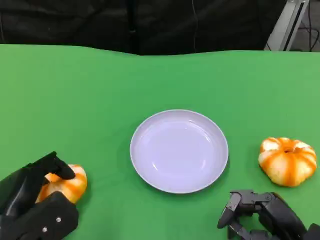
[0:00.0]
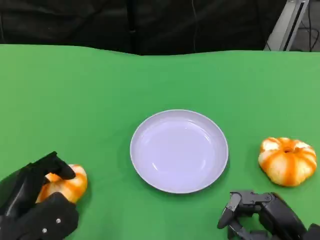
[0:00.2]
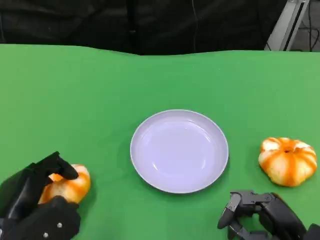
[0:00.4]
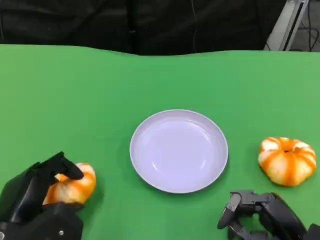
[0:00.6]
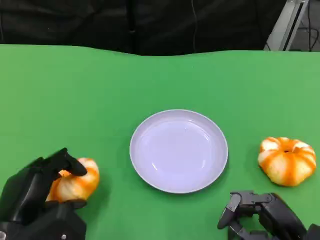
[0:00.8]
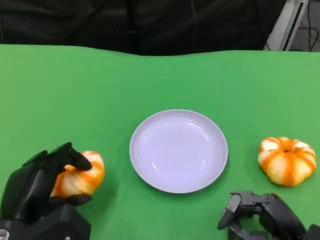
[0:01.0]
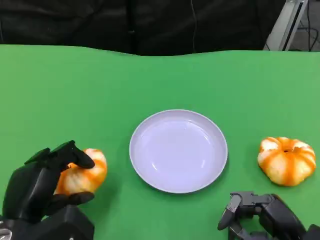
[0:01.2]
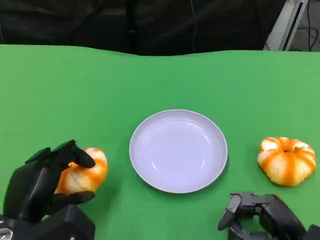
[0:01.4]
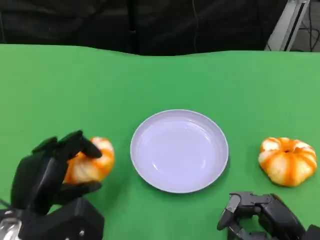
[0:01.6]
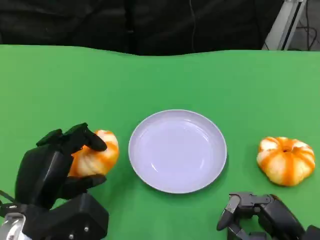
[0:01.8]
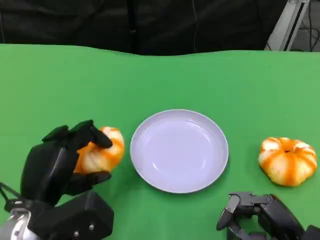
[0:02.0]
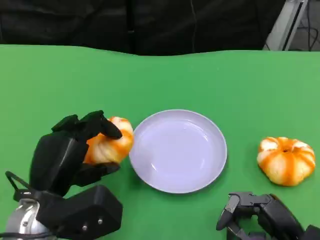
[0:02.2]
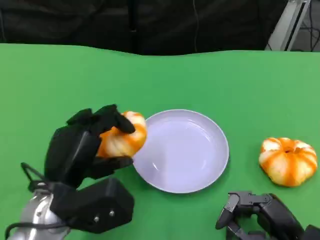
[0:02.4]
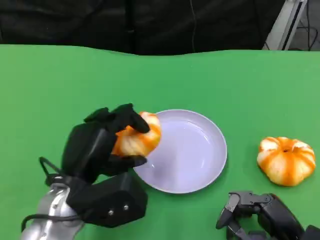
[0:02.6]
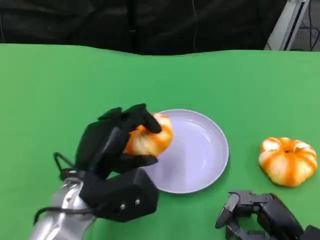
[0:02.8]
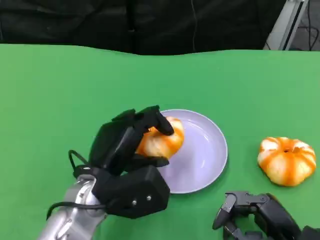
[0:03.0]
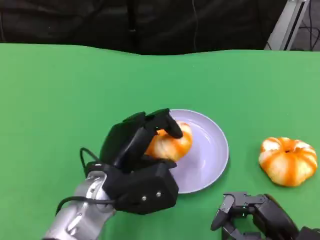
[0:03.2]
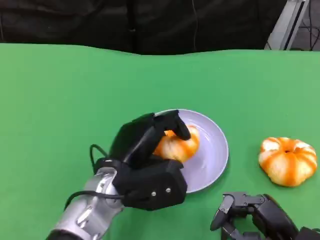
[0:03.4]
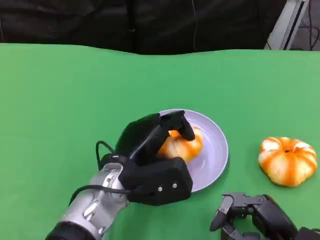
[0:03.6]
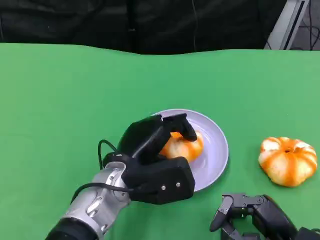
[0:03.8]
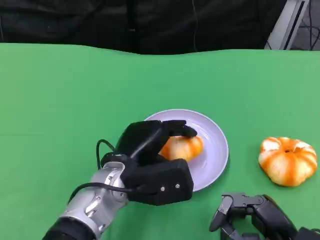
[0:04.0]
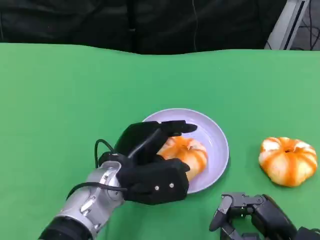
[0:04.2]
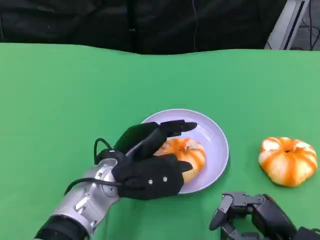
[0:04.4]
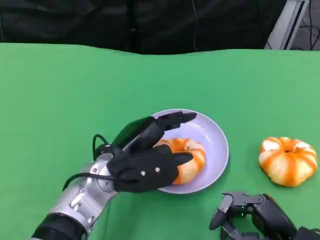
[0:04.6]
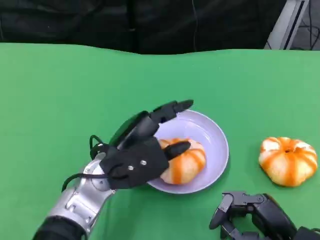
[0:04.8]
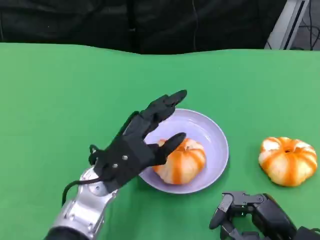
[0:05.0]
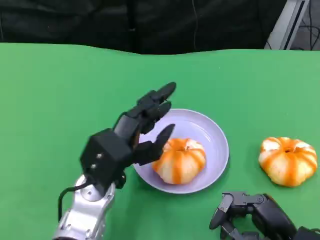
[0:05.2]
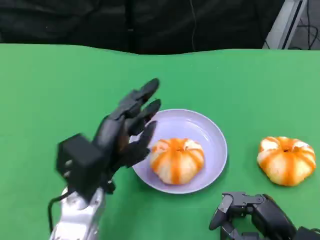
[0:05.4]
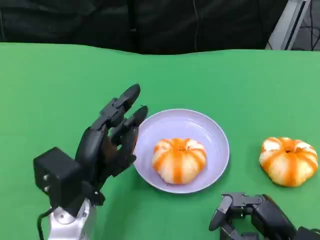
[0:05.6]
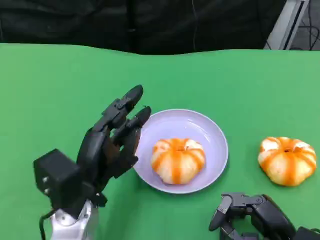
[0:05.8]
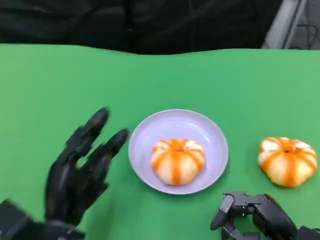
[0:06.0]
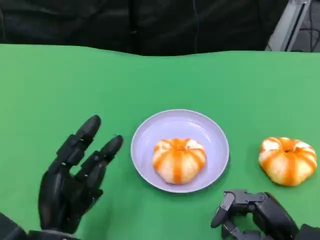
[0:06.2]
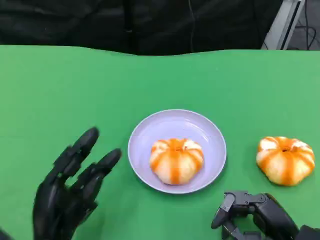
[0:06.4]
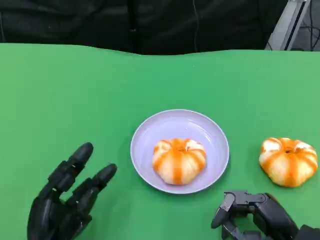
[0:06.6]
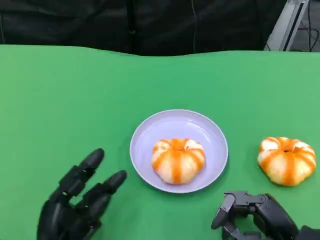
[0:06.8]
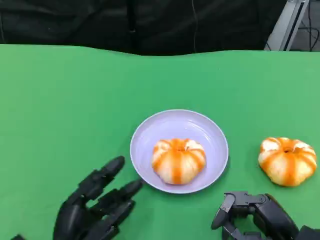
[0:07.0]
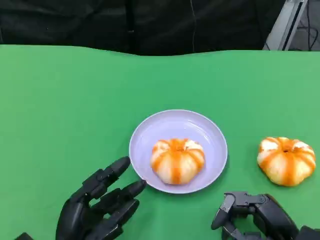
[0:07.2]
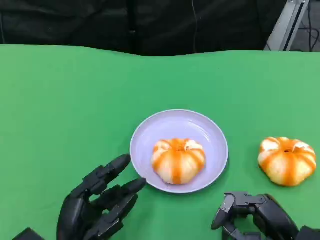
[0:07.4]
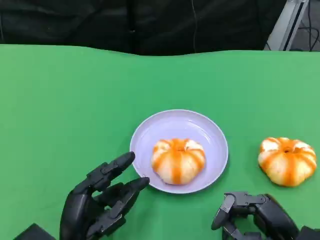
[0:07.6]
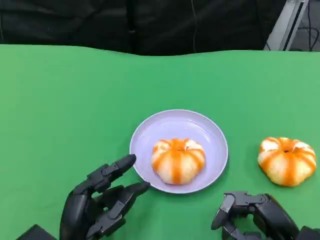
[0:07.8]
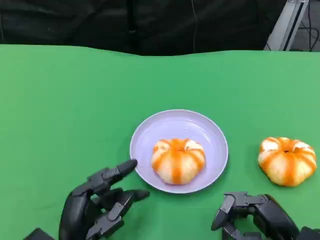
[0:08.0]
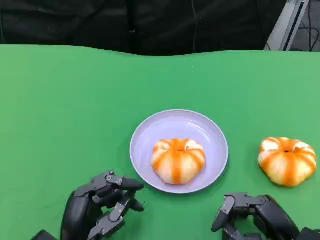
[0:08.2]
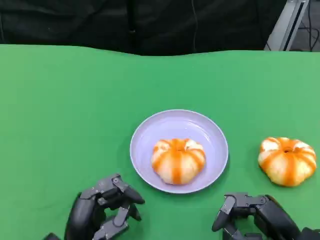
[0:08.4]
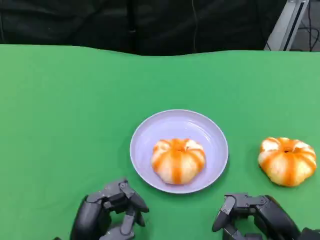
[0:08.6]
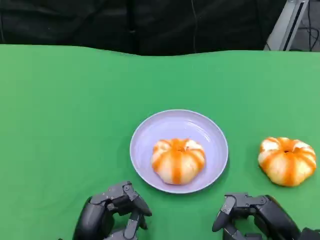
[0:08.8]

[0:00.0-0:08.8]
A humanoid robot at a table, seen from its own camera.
Task of the whole recording: Grasp the bread from the table and place it into the plate.
0:00.0 to 0:01.4: The hands stay close to where they were, moving slightly.
0:01.4 to 0:03.0: The left hand travels to the right and forward by some 10 cm.
0:03.0 to 0:04.4: The hands move only a little.
0:04.4 to 0:05.8: The left hand shifts by roughly 5 cm.
0:05.8 to 0:07.4: The left hand moves backward and downward, roughly 10 cm.
0:07.4 to 0:08.8: The hands move only a little.

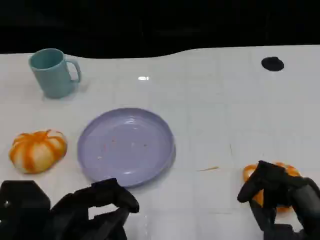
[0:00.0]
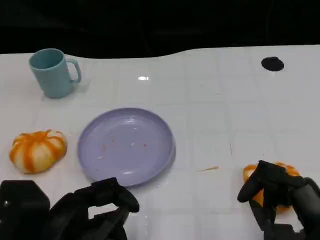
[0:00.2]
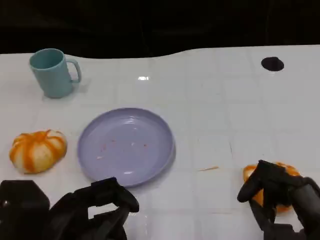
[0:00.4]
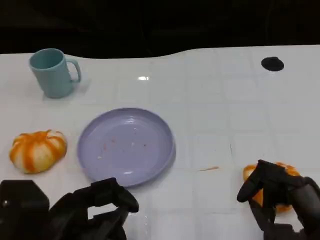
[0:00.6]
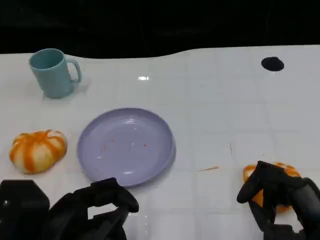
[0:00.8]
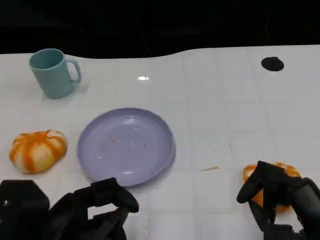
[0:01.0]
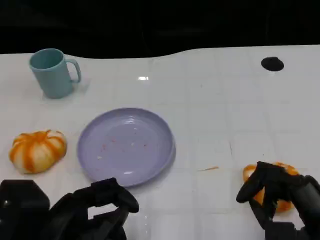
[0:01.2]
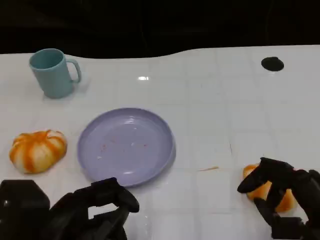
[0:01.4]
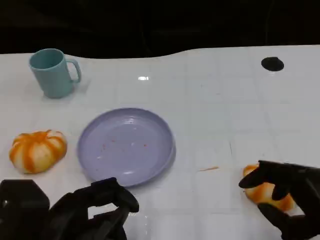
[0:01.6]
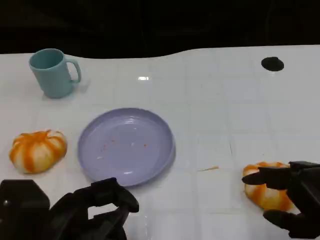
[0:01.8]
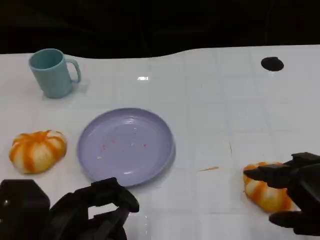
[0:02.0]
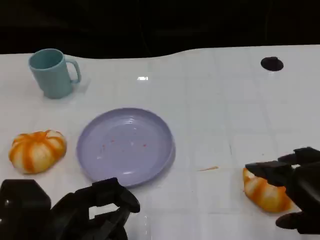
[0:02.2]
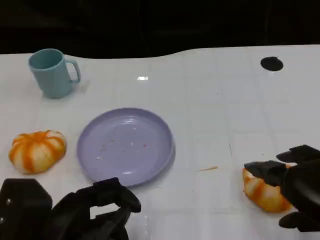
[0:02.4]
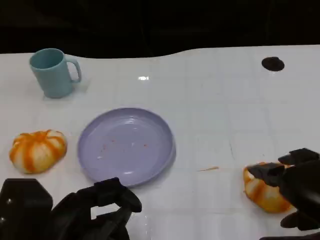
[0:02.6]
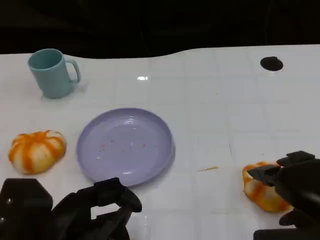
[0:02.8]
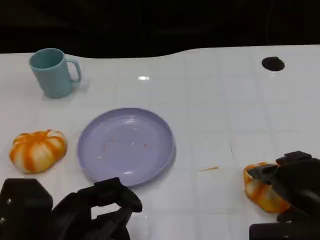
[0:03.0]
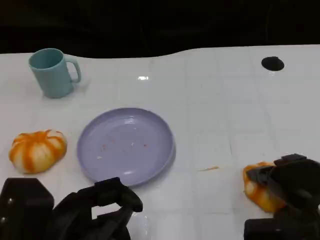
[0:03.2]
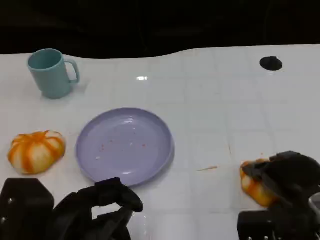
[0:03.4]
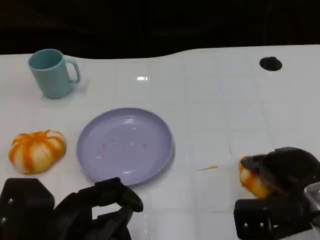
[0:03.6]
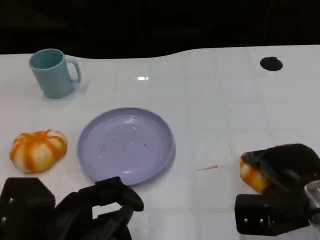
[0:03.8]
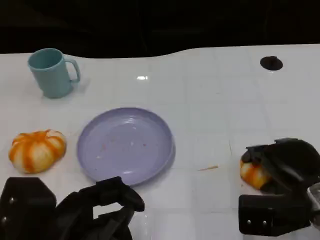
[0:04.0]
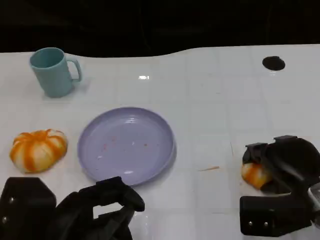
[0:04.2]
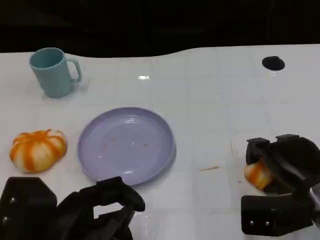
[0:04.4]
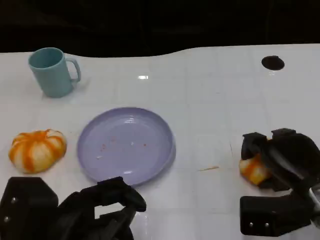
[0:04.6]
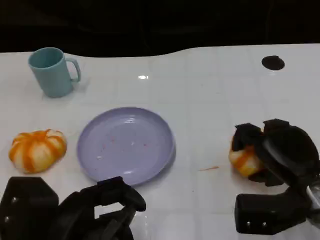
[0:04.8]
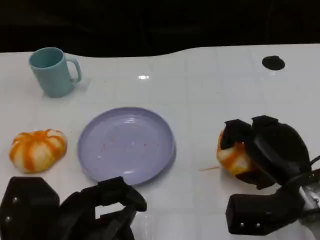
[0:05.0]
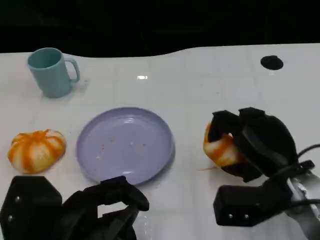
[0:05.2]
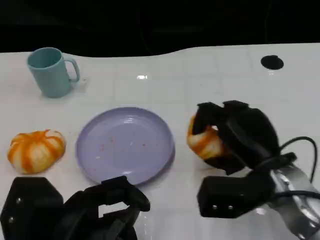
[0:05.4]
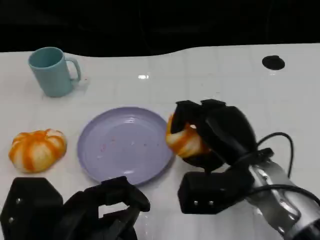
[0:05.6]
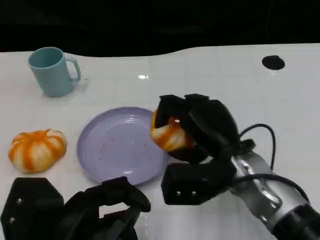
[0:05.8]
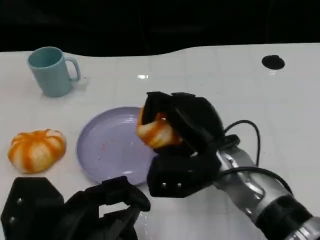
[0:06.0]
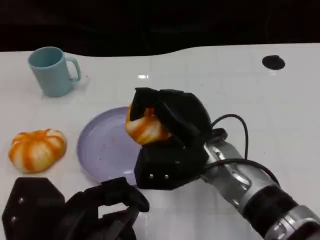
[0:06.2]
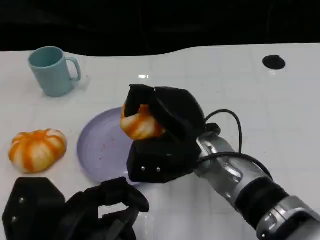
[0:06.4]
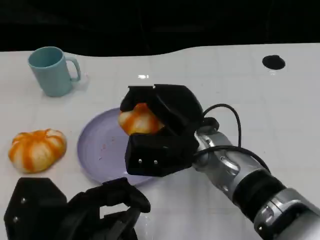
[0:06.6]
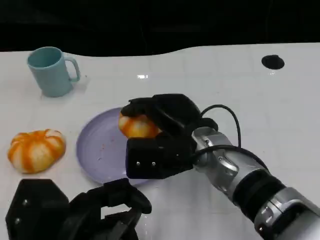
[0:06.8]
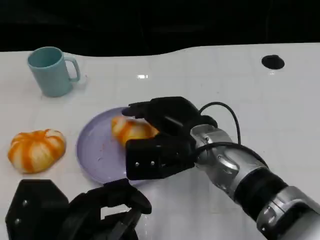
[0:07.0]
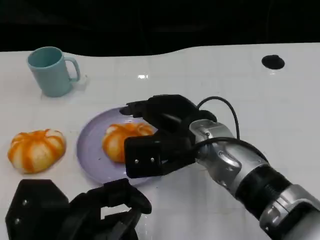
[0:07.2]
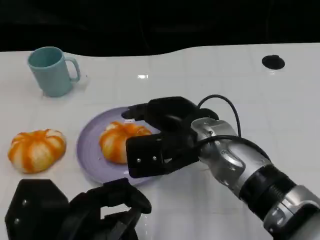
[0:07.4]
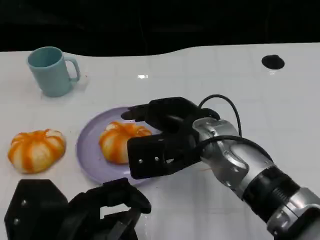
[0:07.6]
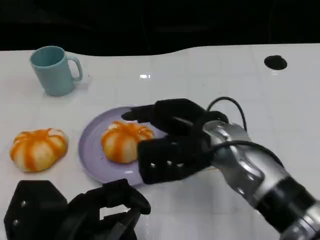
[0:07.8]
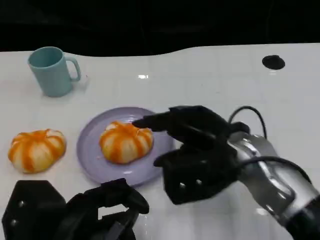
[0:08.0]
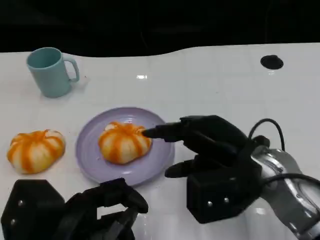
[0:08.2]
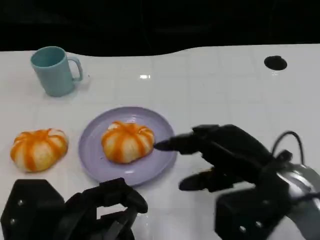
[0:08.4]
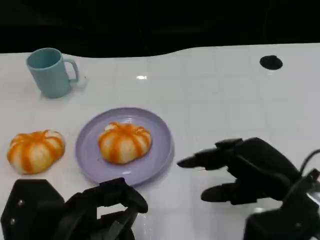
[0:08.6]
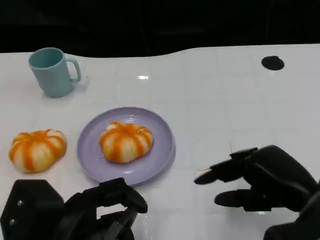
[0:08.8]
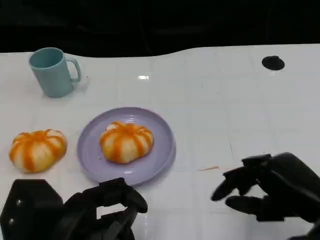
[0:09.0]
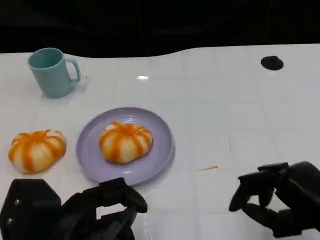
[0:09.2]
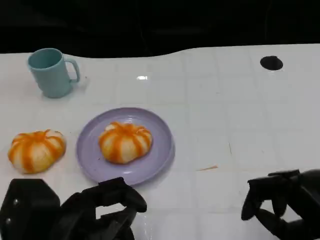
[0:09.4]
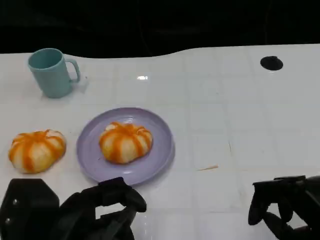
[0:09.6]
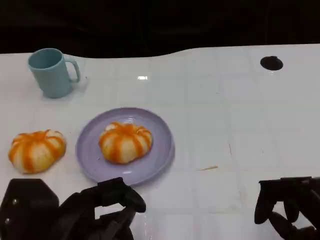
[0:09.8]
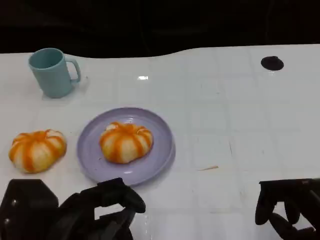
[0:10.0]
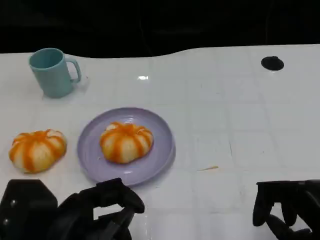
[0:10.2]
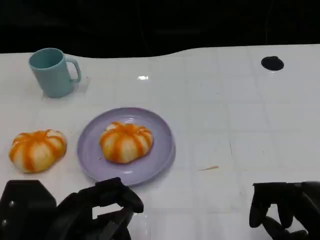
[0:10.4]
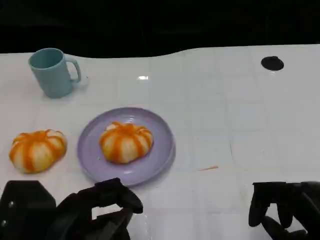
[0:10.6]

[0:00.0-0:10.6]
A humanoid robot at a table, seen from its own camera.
Task of the whole recording: Grasp the bread from the table and place it into the plate.
0:01.6 to 0:03.0: The right hand changes place by roughly 5 cm.
0:03.0 to 0:04.6: The right hand shifts by some 5 cm.
0:04.6 to 0:06.0: The right hand heads to the left, covering about 15 cm.
0:07.6 to 0:09.0: The right hand heads to the right and backward, covering approximately 20 cm.
0:09.0 to 0:10.6: The hands stay close to where they were, moving slightly.

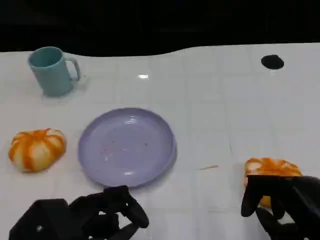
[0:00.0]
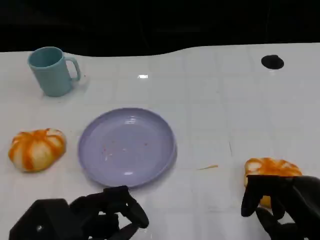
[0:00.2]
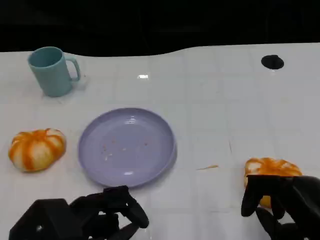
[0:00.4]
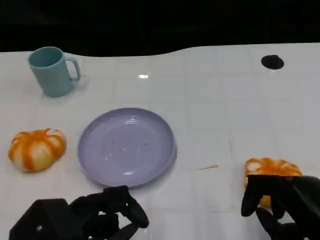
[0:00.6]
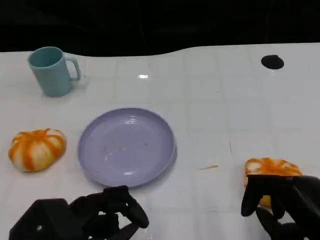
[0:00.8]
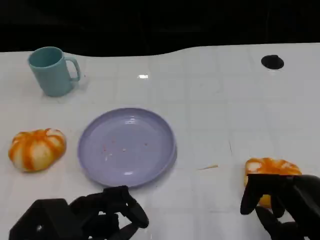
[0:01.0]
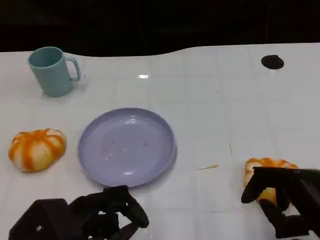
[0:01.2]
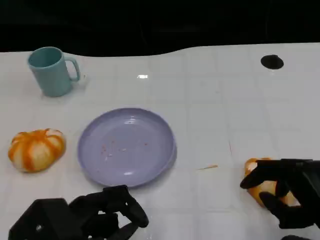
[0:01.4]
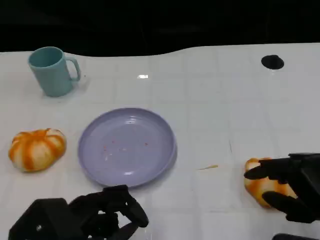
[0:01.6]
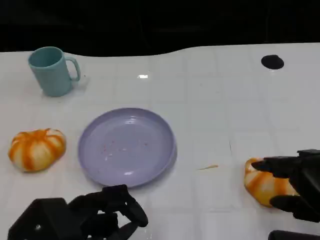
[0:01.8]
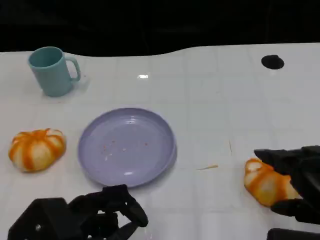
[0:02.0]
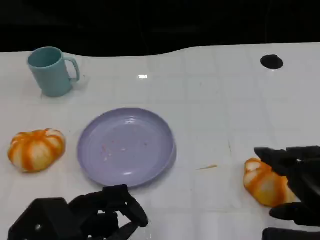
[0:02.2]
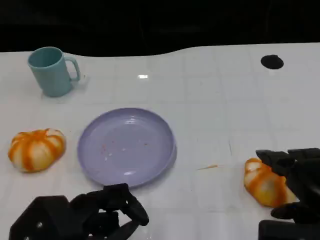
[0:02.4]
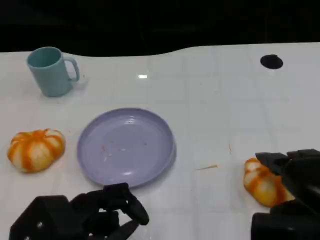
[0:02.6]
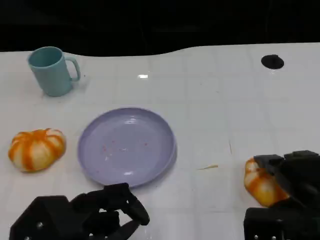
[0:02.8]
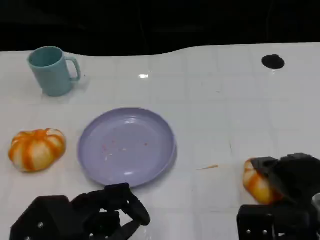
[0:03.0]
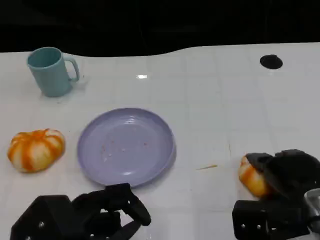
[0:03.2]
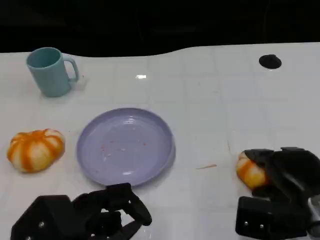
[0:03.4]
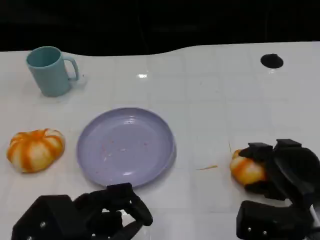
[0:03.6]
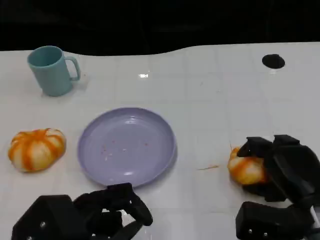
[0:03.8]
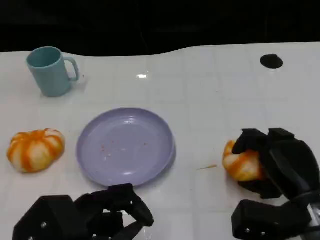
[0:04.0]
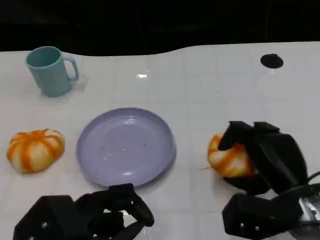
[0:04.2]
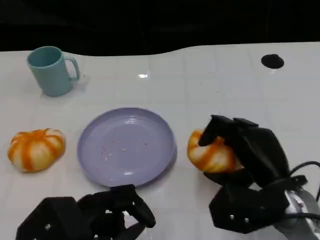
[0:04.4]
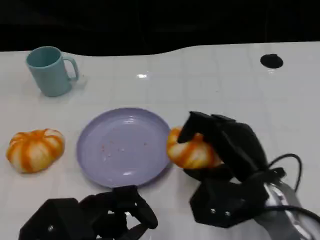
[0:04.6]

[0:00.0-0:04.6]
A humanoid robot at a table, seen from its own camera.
Task of the whole recording: Grasp the bread from the table and place it into the plate.
0:00.0 to 0:01.6: The hands stay close to where they were, moving slightly.
0:01.6 to 0:03.0: The right hand moves forward, some 5 cm.
0:03.0 to 0:04.6: The right hand shifts approximately 10 cm to the left.
